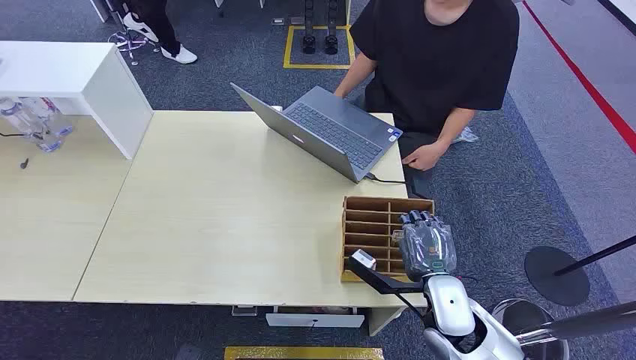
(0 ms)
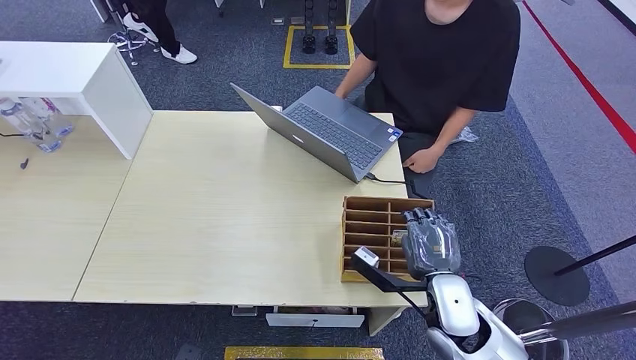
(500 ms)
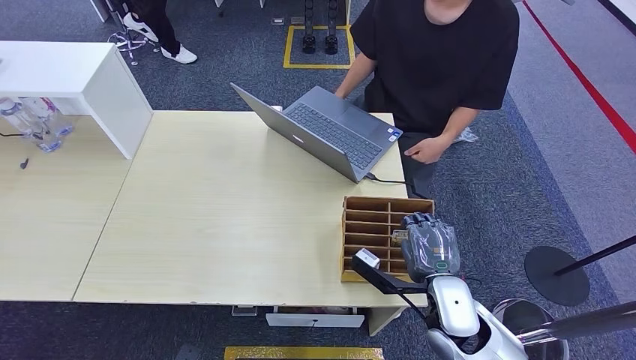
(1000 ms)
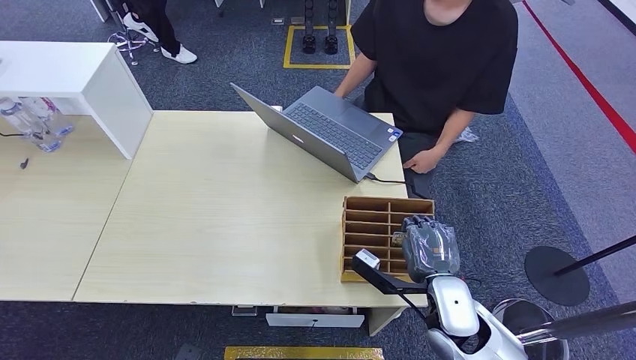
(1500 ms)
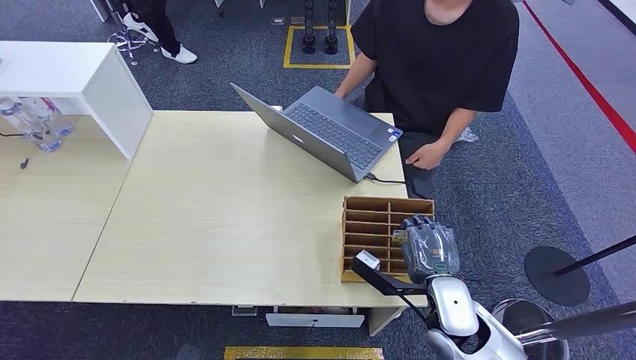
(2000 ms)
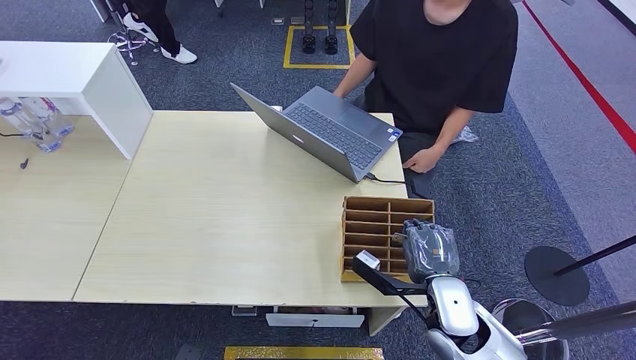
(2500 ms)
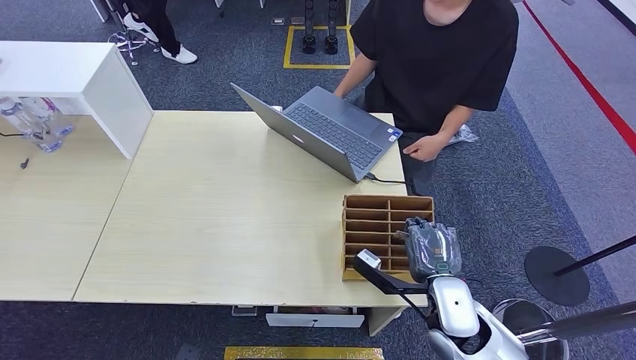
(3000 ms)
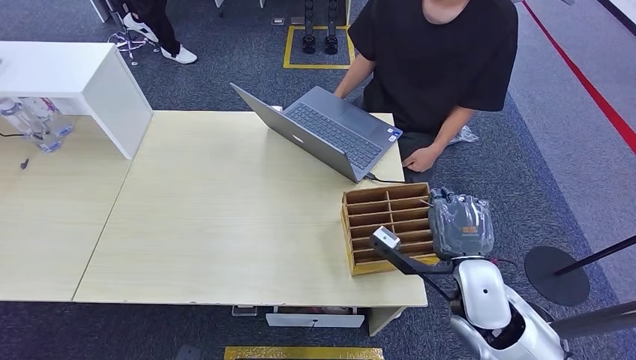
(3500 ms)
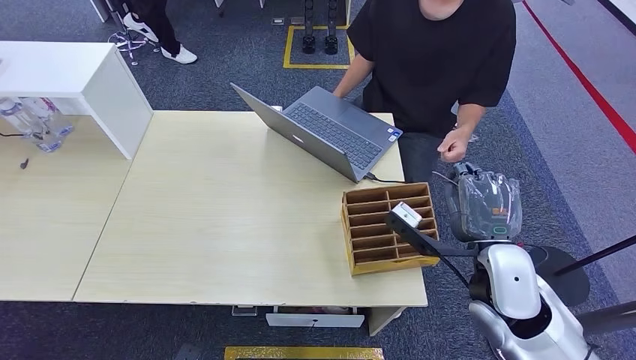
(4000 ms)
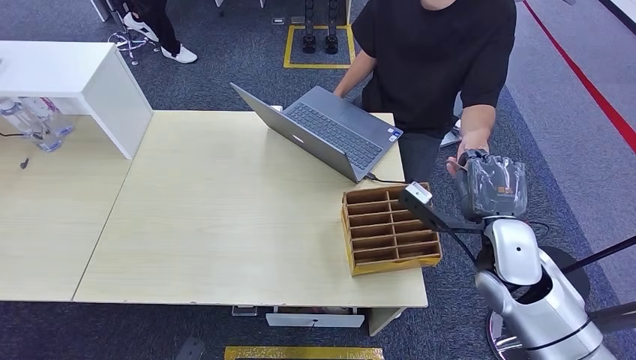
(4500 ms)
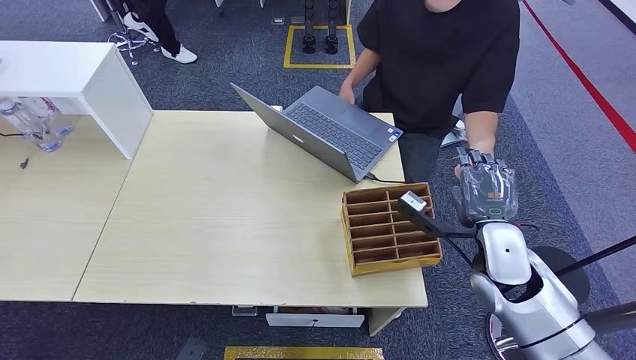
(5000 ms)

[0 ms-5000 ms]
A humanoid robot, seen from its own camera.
Step, 0 ms to 3500 ms: Pick up the key card from the card box.
Step, 4500 ms to 5000 ms: Hand the key card to the target.
2500 ms to 5000 ms: The right hand is displaced upward, to the right and forward by some 10 cm.
